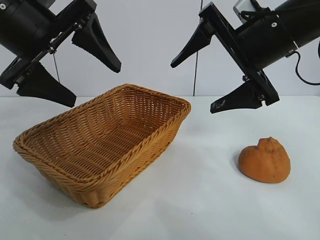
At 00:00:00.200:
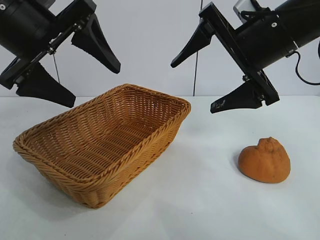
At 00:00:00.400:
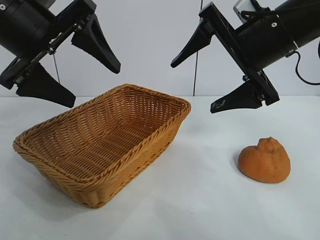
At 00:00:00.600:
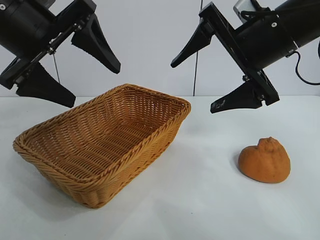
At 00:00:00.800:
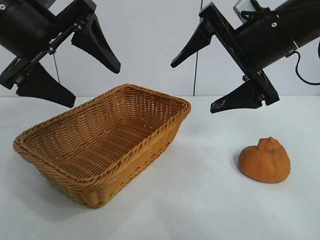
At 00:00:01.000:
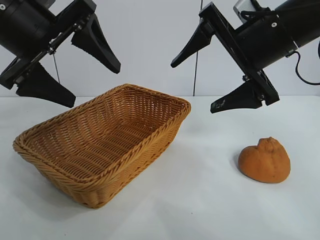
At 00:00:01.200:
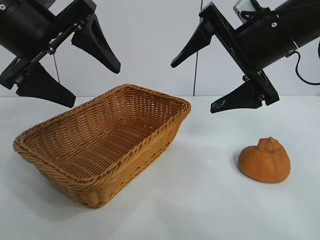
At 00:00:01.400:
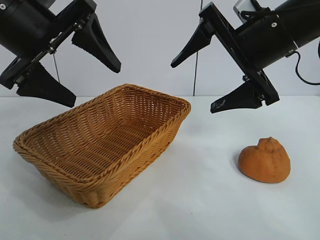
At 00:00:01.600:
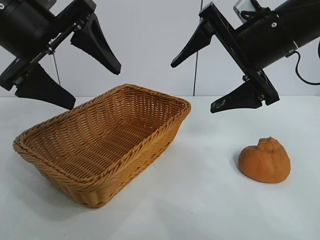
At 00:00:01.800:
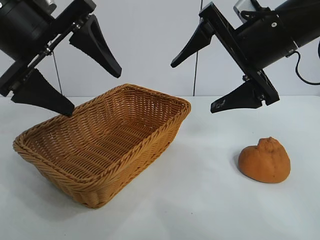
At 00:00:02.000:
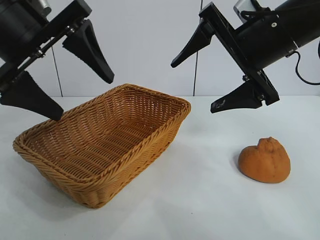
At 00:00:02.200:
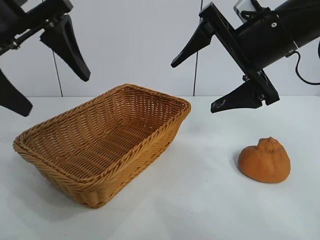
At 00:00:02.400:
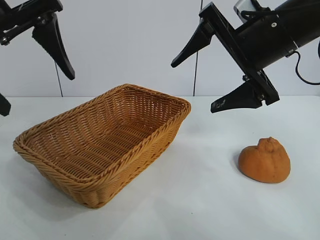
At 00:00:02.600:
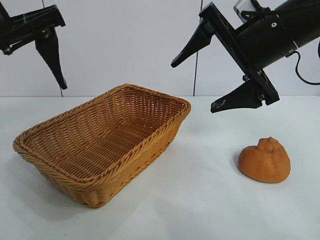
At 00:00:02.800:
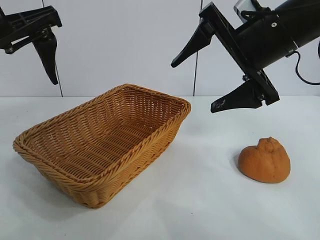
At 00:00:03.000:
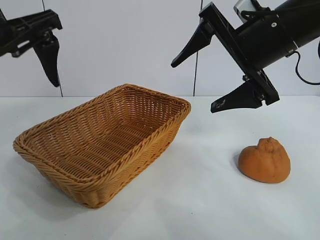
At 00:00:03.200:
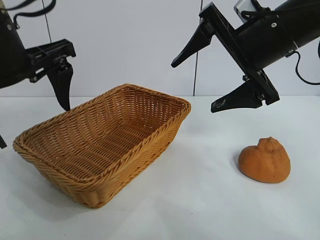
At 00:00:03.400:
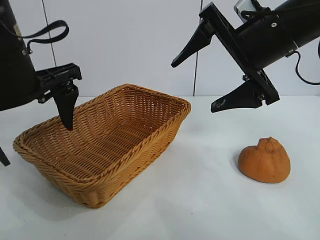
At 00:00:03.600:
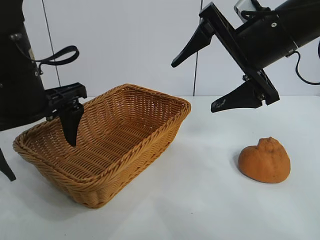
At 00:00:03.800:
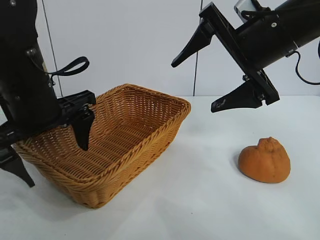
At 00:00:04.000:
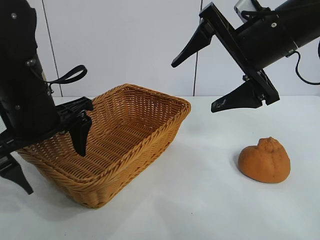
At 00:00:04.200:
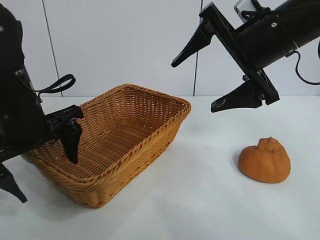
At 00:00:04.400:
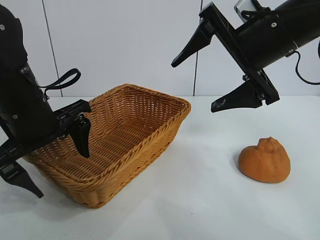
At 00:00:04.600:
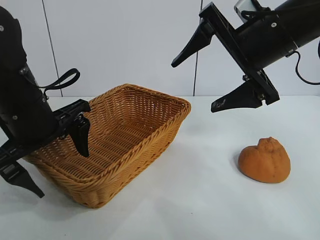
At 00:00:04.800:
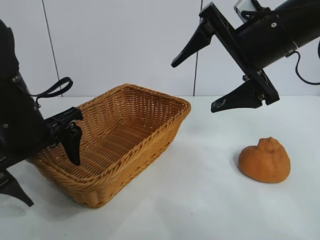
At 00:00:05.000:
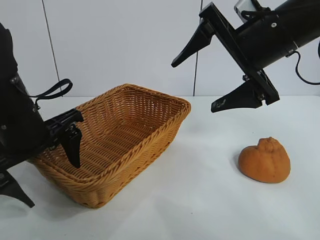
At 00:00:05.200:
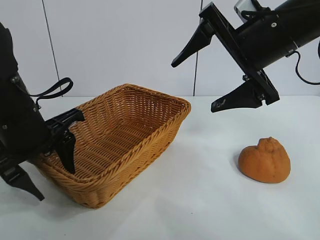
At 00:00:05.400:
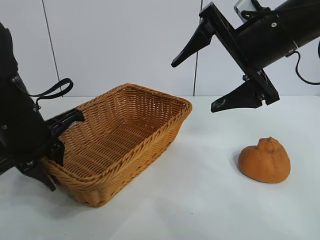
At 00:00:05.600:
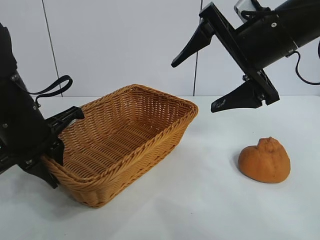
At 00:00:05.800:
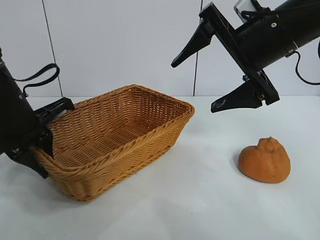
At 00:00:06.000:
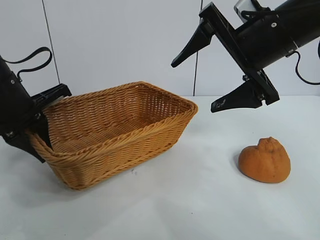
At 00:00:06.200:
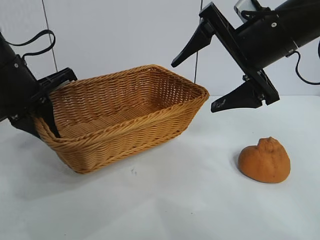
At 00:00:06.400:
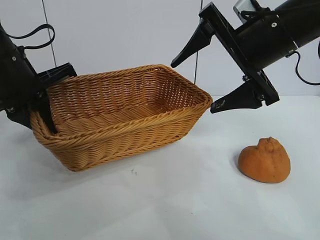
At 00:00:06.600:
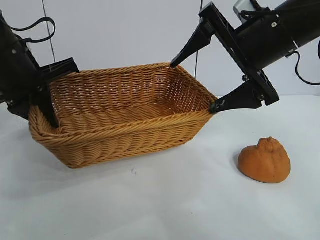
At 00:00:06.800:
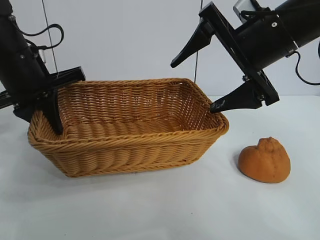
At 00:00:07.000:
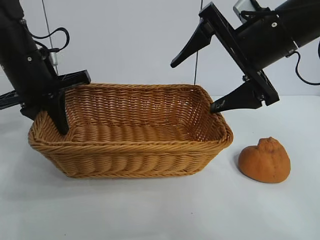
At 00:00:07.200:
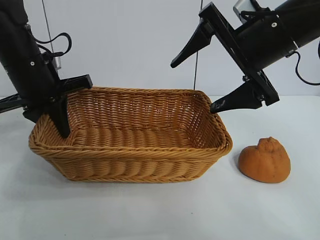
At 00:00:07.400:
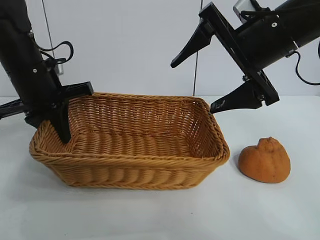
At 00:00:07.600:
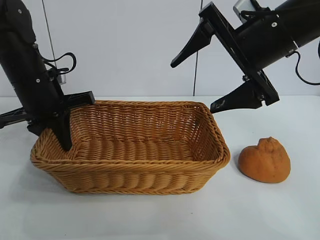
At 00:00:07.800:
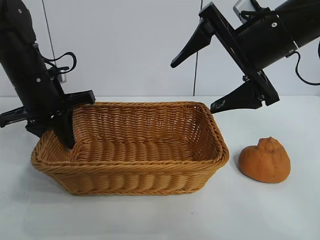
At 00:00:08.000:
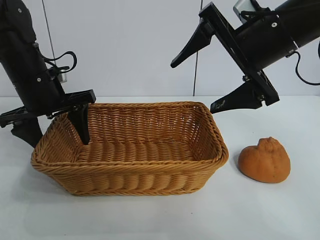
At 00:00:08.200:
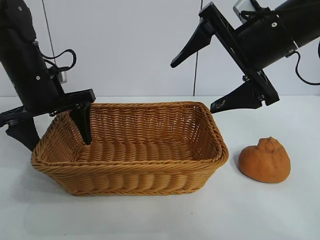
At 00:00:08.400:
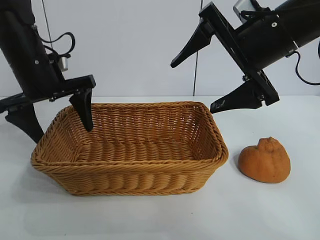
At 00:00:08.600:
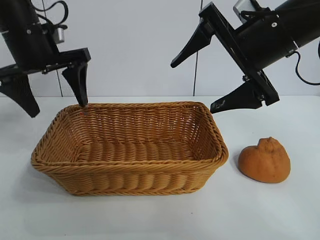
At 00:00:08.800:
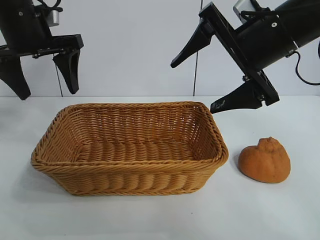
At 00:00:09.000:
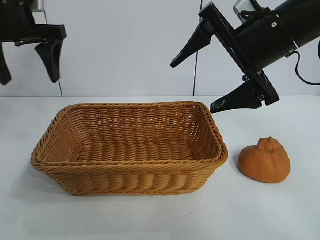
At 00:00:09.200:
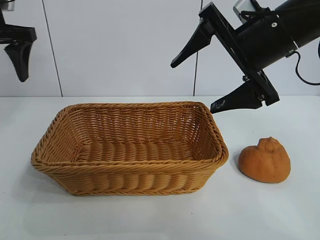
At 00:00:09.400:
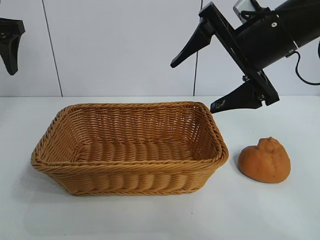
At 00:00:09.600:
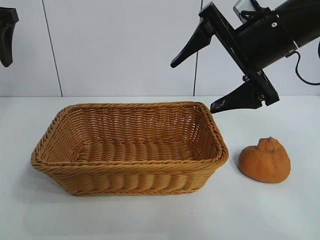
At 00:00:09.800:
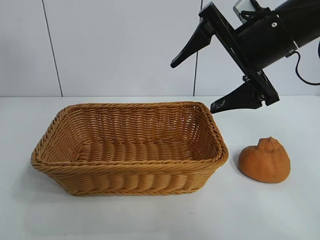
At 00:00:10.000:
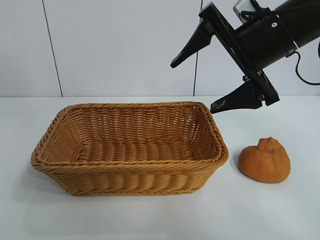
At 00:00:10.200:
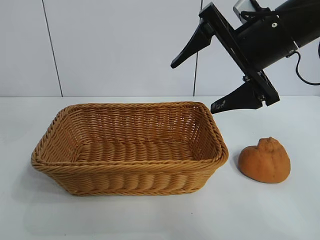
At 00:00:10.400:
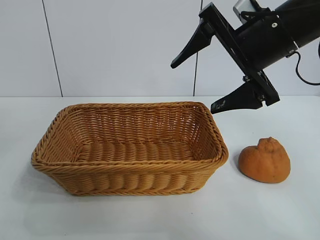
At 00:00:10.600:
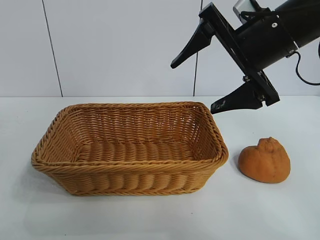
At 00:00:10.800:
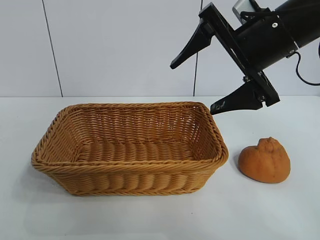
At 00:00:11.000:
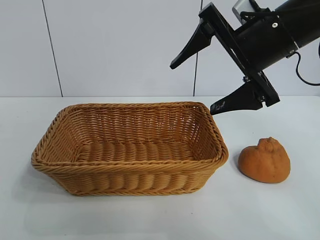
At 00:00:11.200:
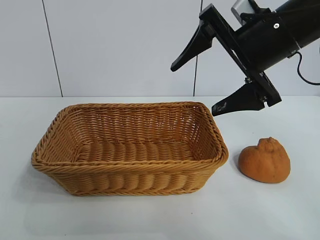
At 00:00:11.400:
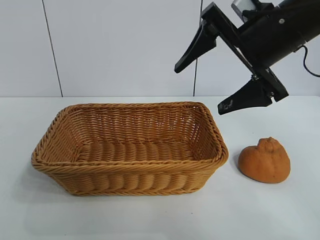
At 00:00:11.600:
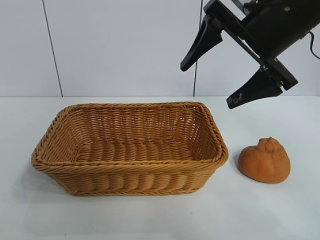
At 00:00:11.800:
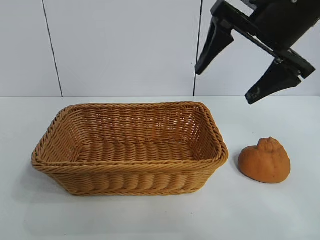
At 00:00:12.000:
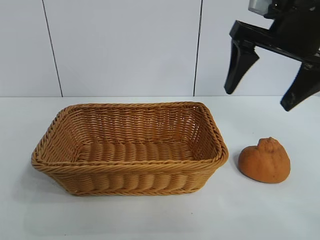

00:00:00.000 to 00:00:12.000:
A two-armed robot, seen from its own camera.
Task of the whole recording: pick up the orange and put it into the basket.
Step, 00:00:01.600 to 00:00:05.400: Grasp the basket with left gripper.
Step, 00:00:05.800 to 00:00:08.400: Place the basket in the center of view with left gripper.

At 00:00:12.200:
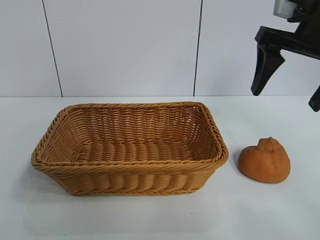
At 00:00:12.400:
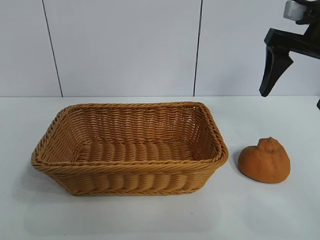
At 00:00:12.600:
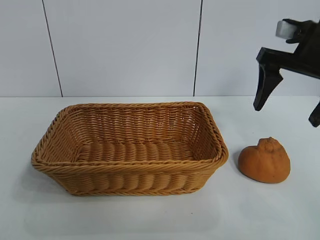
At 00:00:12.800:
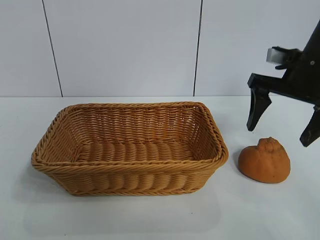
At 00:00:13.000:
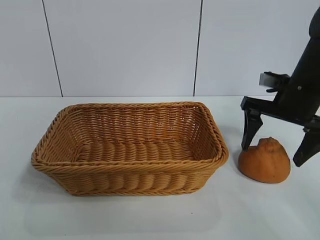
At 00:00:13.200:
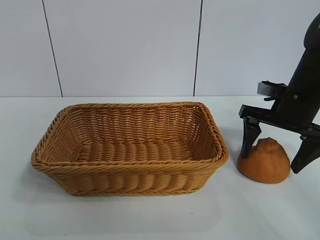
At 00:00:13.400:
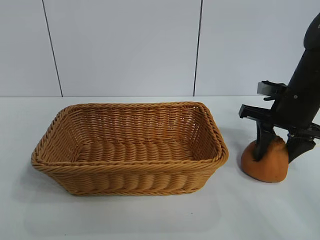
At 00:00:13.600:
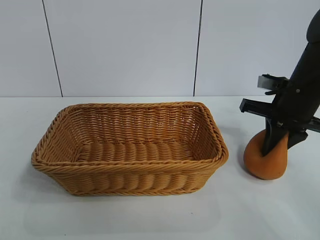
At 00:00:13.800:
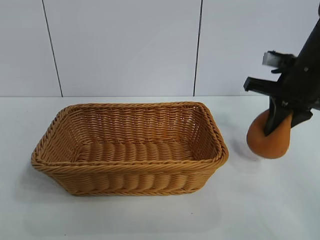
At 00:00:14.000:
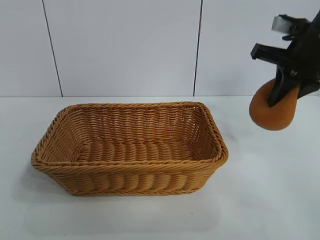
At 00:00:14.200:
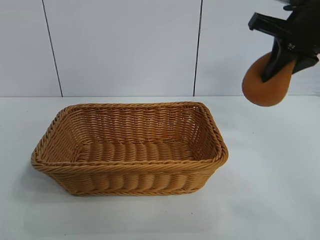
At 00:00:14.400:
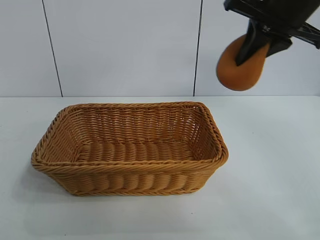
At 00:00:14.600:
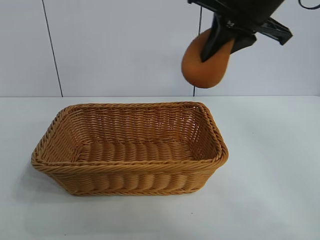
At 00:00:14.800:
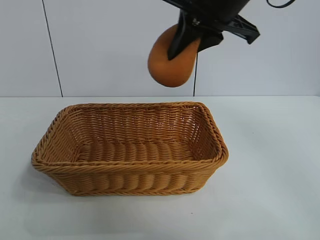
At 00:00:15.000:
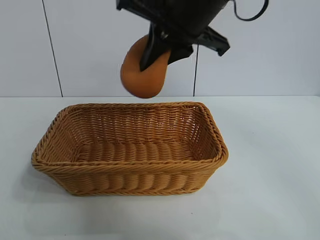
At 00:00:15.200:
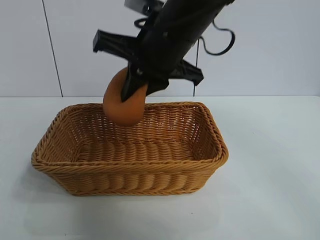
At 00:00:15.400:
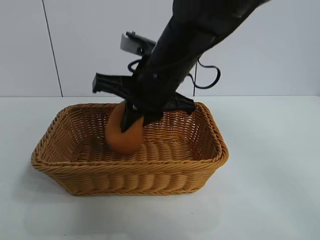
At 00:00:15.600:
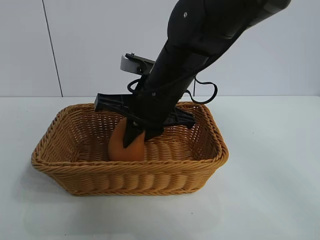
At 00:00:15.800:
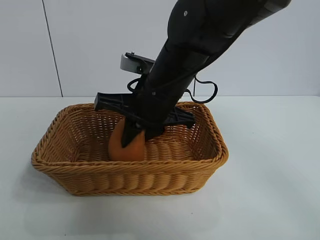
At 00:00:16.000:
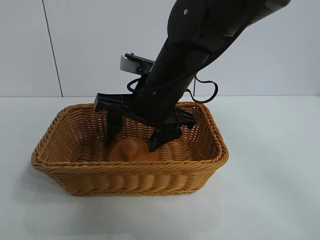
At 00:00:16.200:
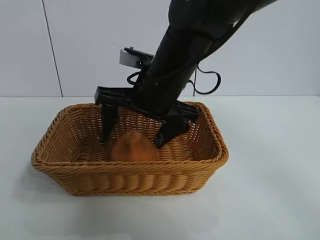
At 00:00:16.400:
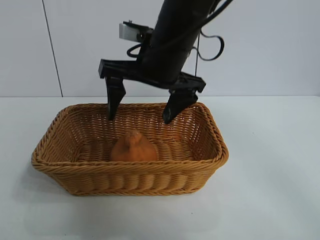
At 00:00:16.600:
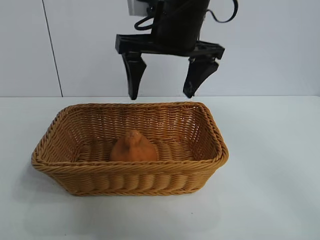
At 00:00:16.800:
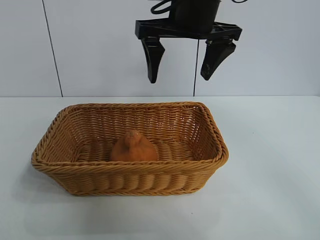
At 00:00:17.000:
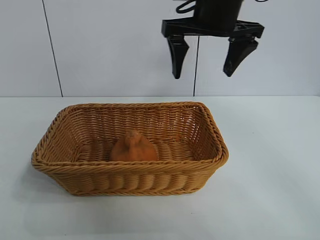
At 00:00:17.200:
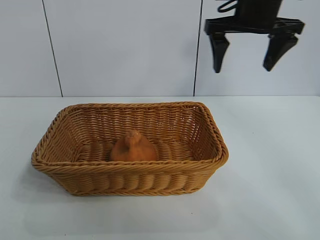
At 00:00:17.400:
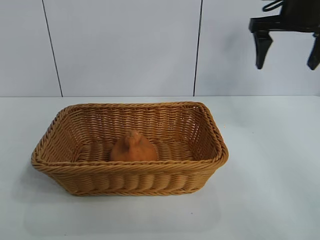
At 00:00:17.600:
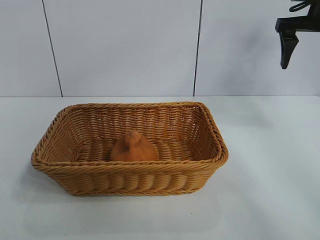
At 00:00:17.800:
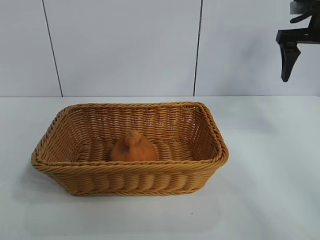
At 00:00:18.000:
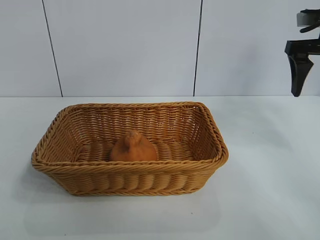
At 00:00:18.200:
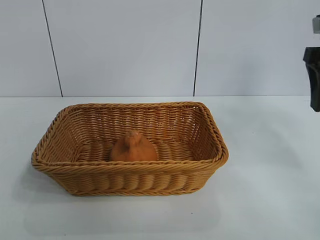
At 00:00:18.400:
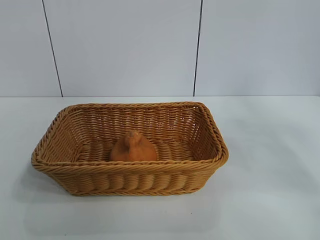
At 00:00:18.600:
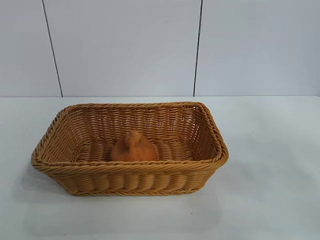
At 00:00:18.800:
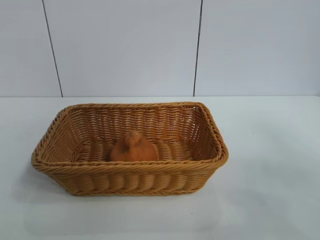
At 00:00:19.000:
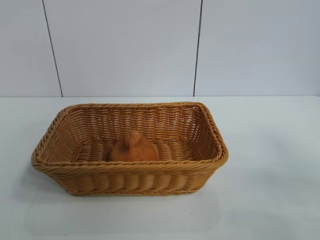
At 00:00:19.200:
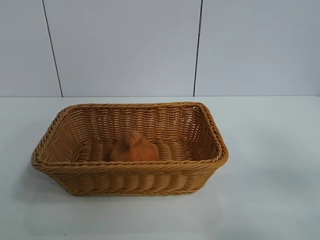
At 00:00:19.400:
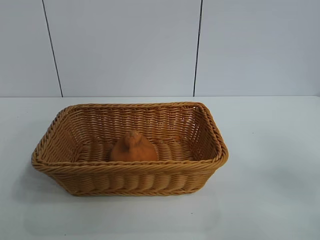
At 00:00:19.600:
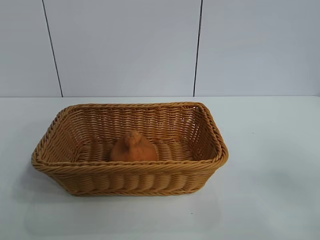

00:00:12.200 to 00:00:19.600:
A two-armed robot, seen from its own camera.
Task of the whole recording: pick up the orange and put it into the basket.
Step, 00:00:13.800 to 00:00:16.600: Place the orange in the basket with right gripper.
